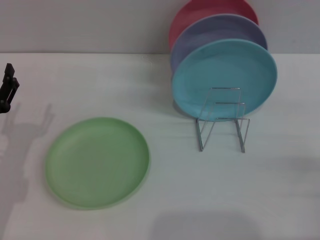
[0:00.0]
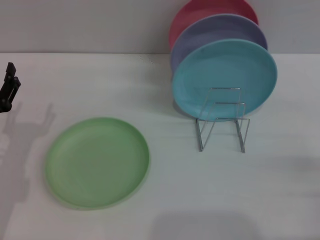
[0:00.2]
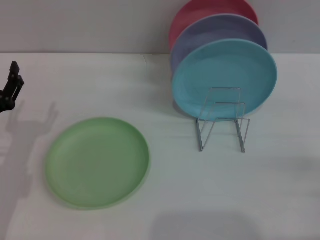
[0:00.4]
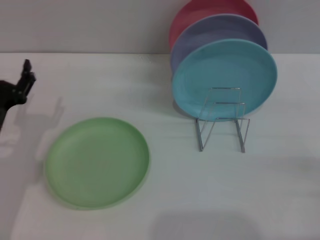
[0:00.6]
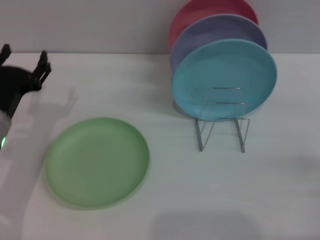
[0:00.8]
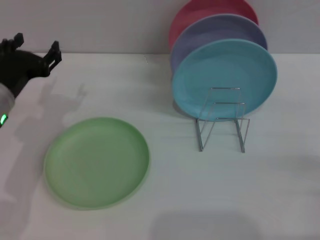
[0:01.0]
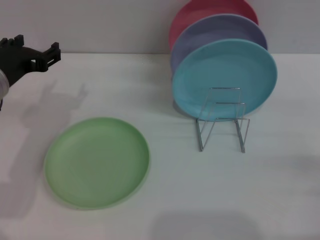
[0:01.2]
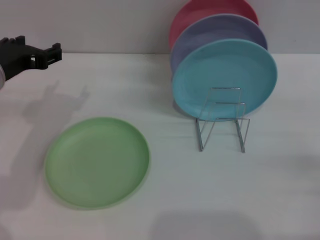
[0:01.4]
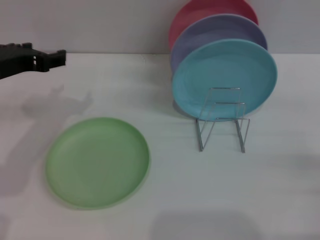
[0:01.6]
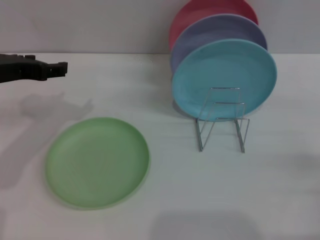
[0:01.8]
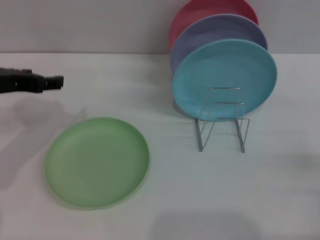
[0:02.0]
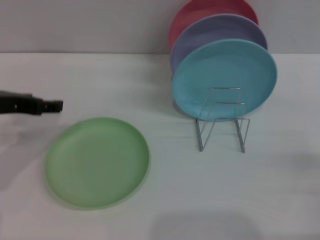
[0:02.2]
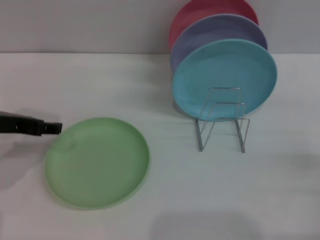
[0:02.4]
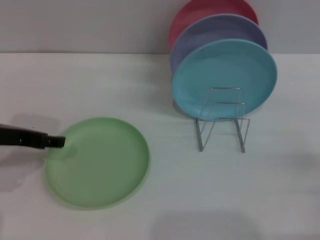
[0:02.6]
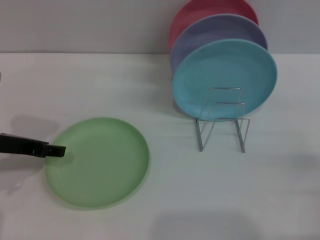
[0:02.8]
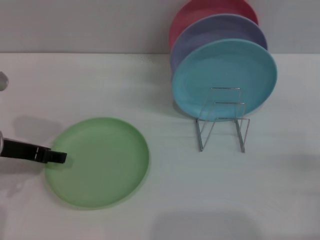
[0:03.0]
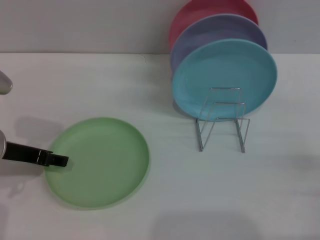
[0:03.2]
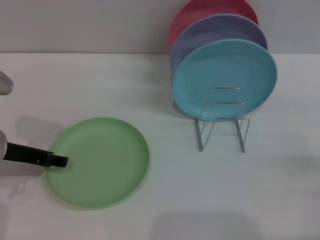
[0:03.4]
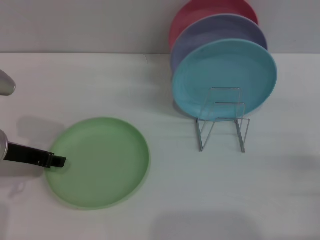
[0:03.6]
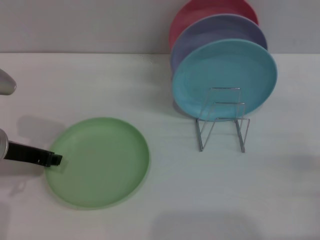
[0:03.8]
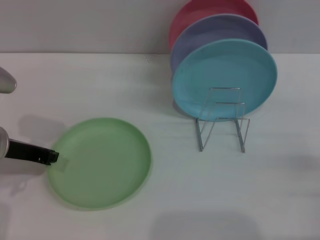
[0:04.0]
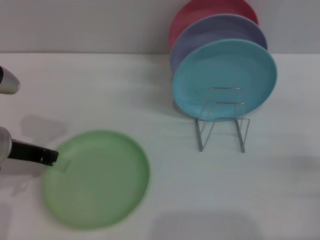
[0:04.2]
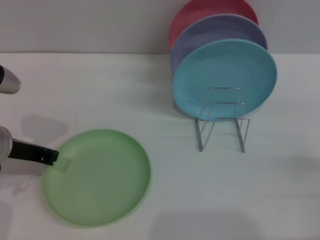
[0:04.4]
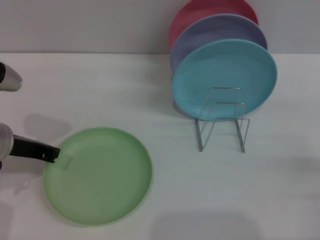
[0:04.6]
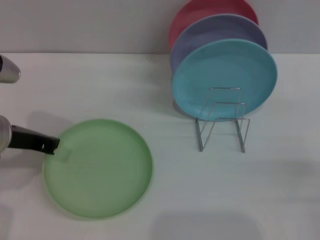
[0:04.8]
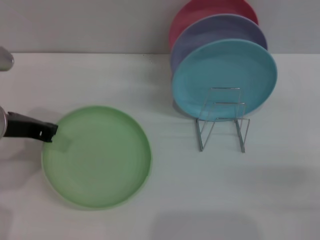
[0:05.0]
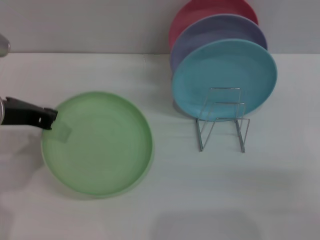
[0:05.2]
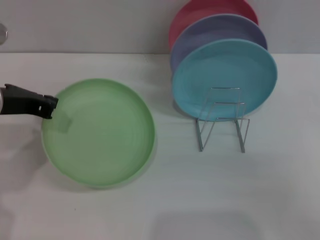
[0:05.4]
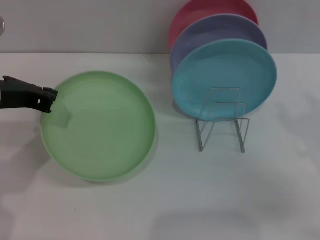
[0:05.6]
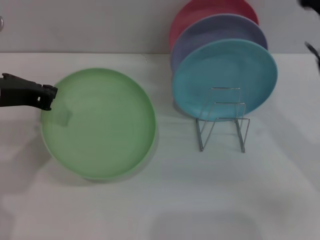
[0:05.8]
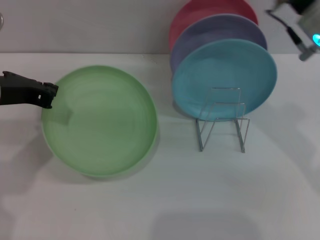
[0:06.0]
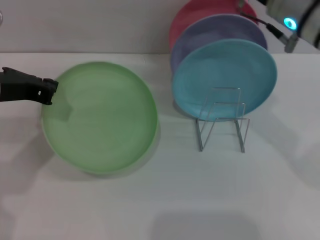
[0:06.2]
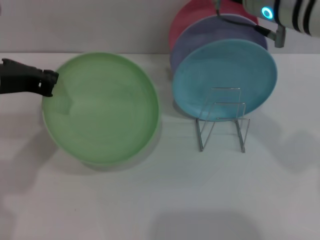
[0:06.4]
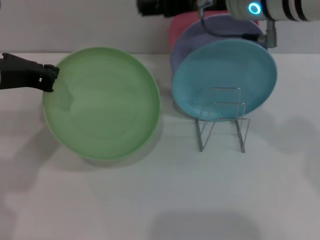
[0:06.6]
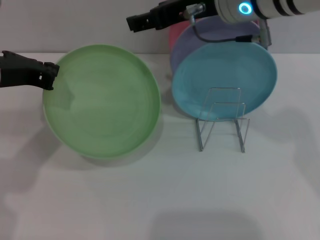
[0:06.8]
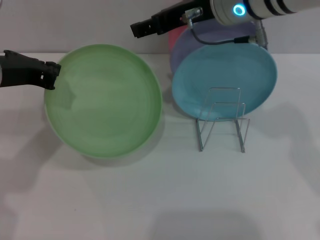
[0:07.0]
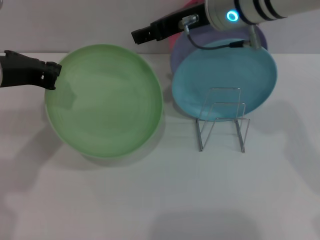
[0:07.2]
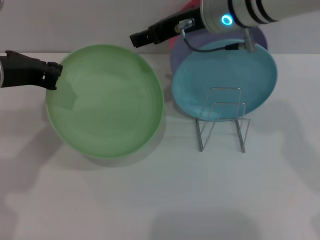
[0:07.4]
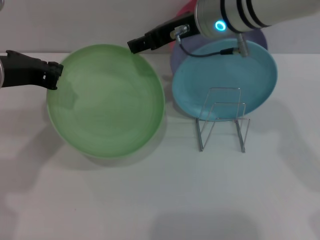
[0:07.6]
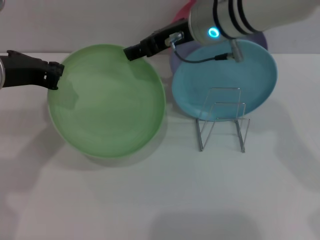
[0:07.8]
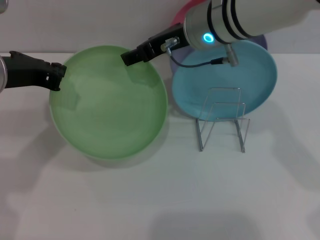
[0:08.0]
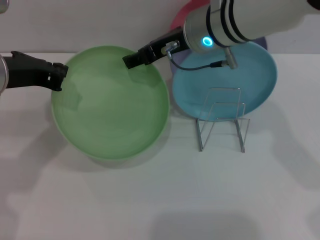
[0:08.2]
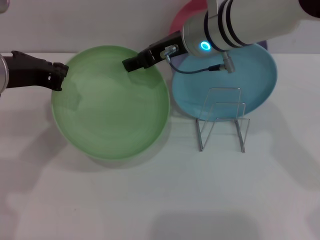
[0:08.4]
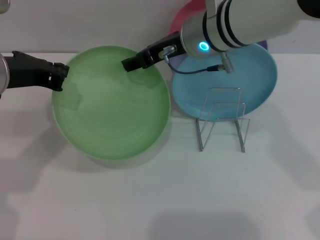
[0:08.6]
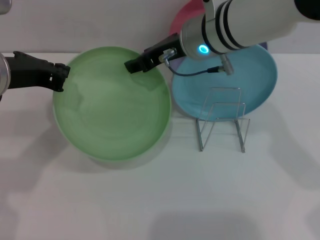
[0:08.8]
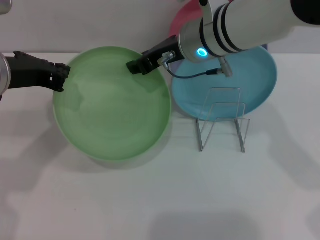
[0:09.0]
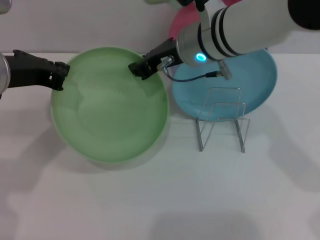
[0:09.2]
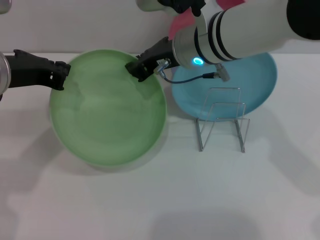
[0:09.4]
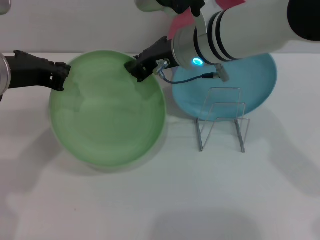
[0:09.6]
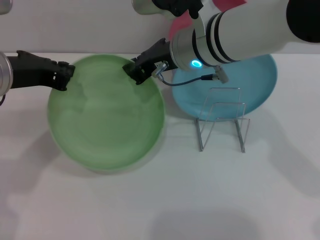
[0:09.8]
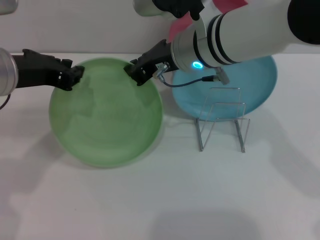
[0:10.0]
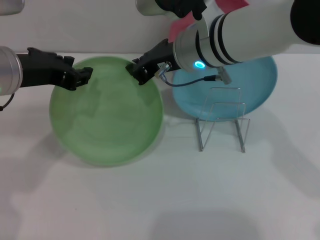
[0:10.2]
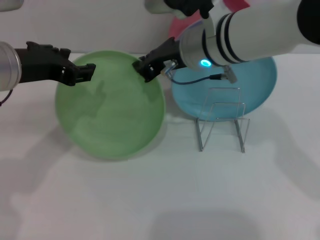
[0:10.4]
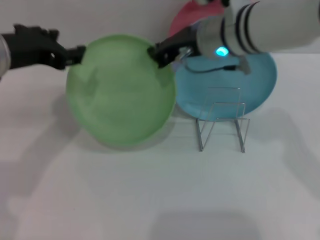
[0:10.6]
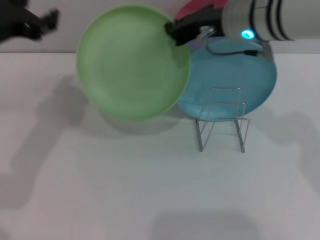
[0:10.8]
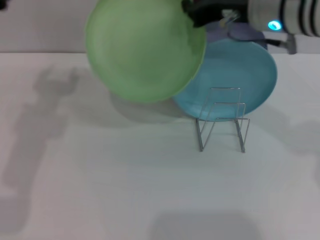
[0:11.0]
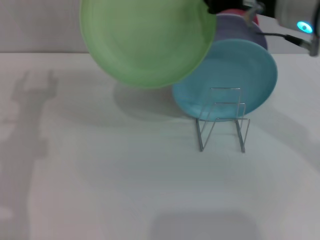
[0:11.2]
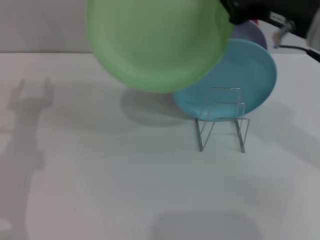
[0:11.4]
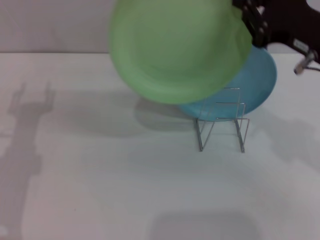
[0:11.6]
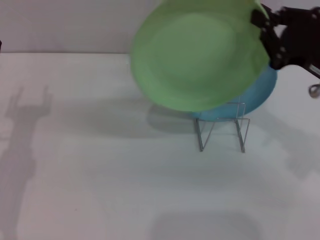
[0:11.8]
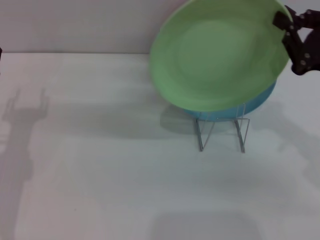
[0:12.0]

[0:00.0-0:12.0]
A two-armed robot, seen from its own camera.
Task of the whole recording: Grip the plate with one hand, pass it to the other, then set it on the shelf.
Step, 0:00.0 to 0:06.2: Pick up the plate with the left gripper.
Step, 0:06.4 to 0:11.0: Pass the plate from the left gripper to the right gripper.
0:00.0 to 0:01.6: The left gripper heads upward and forward, covering about 15 cm.
0:01.6 to 0:03.0: The left gripper goes roughly 5 cm downward.
0:03.0 to 0:04.4: The left gripper closes its fingers.
0:04.4 to 0:06.0: The left gripper goes some 10 cm upward. Meanwhile the right gripper is displaced upward, to the left and forward by roughly 30 cm.
0:06.0 to 0:07.6: The right gripper is displaced to the left and forward by approximately 10 cm.
0:07.6 to 0:09.0: The grippers make only small movements.
0:09.0 to 0:10.4: The right gripper closes up; the left gripper opens.
0:10.4 to 0:12.0: The right gripper shifts some 25 cm to the right and backward. The left gripper moves downward and to the left, approximately 15 cm.

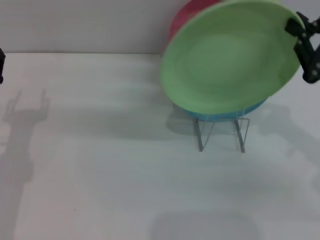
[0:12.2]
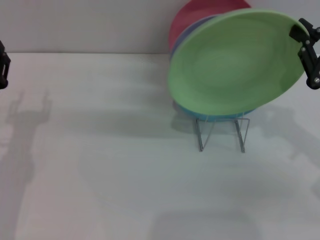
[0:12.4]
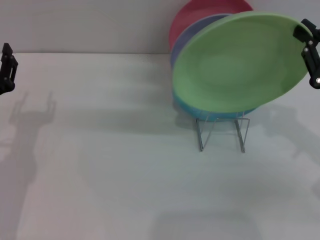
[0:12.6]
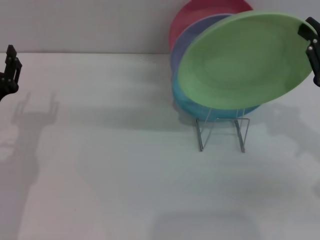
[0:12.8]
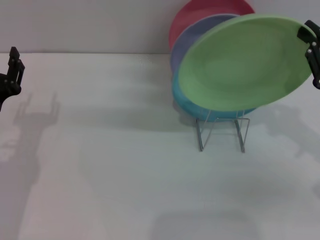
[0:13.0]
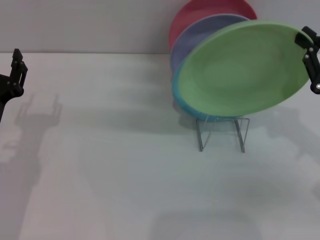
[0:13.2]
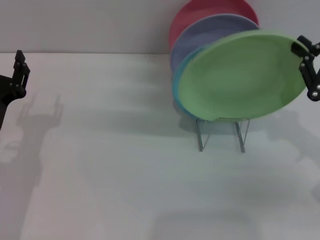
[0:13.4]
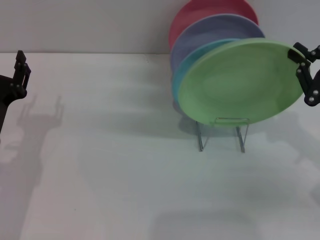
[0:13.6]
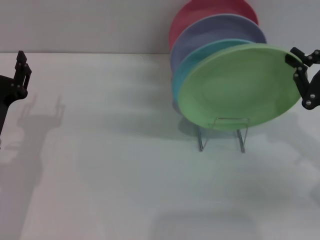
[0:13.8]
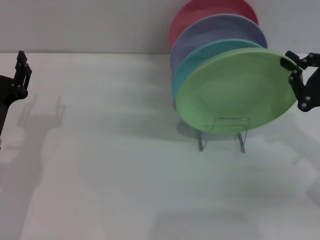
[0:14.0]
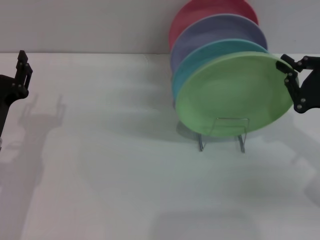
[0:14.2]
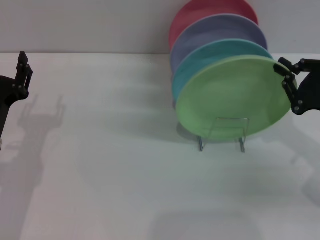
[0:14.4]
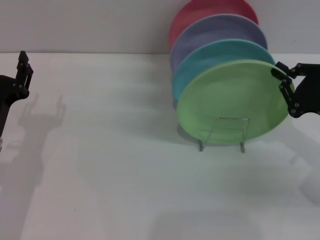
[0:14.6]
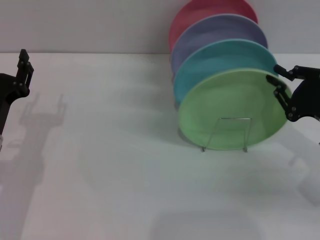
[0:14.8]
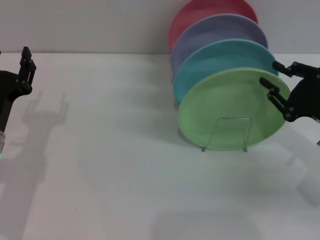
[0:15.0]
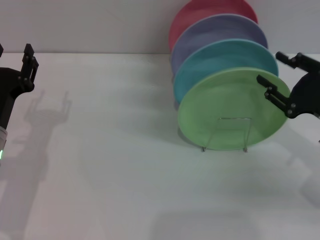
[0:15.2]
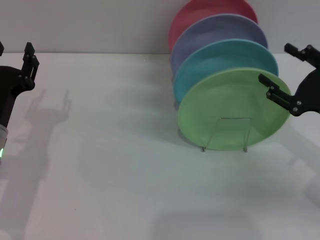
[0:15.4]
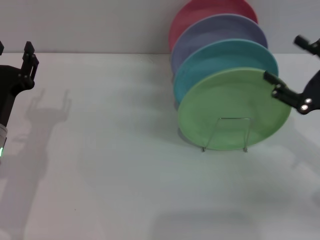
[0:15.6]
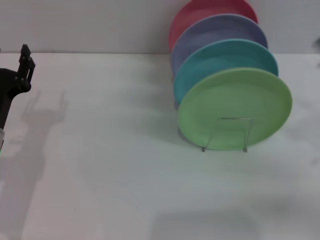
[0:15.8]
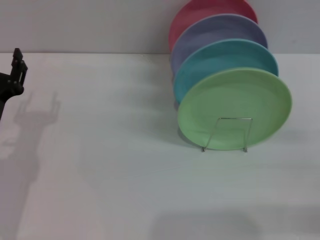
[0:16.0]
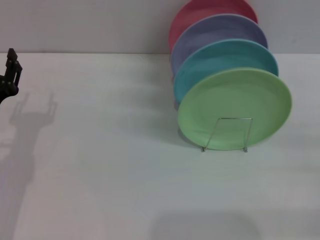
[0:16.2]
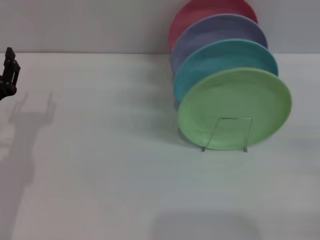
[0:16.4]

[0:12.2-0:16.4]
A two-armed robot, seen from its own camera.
Task of the whole recording: Grip the plate with one hand, pass it to the other, then set it on the shelf.
Step, 0:12.2 to 0:15.0: Place the plate on the shelf with the right gripper.
0:12.2 to 0:13.6: The grippers make only small movements.
0:13.6 to 0:15.0: The grippers move only a little.
0:15.0 to 0:16.4: The right gripper heads to the right and backward, covering roughly 10 cm, and opens up.
